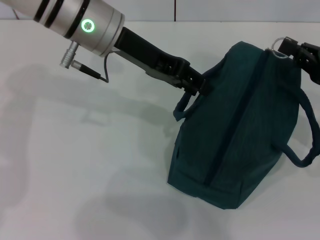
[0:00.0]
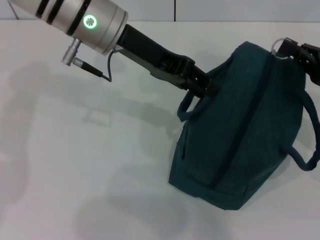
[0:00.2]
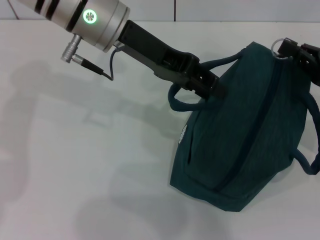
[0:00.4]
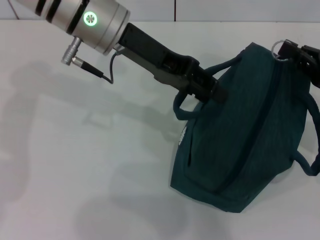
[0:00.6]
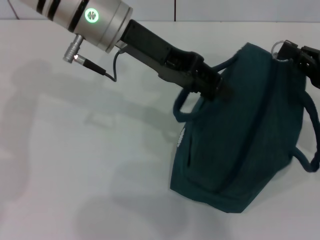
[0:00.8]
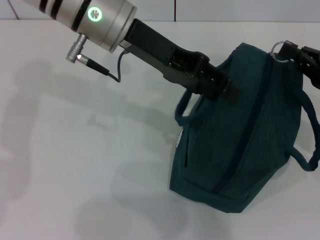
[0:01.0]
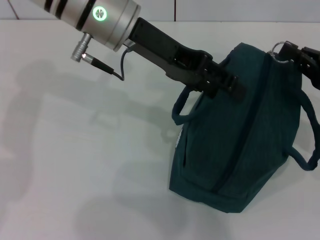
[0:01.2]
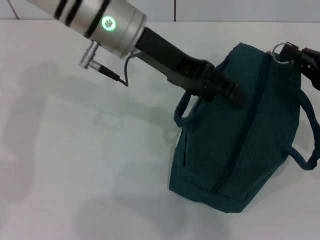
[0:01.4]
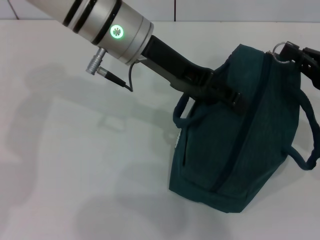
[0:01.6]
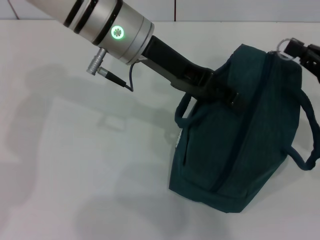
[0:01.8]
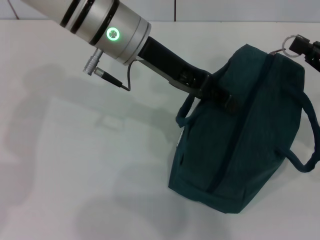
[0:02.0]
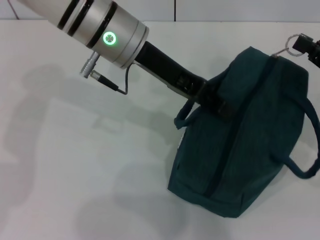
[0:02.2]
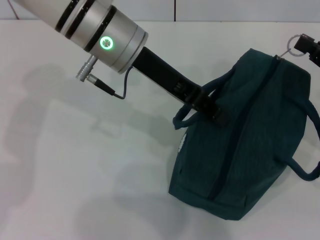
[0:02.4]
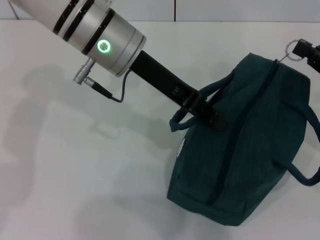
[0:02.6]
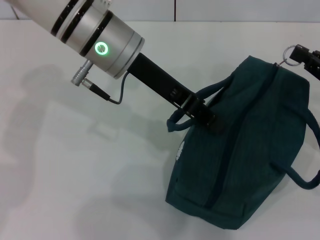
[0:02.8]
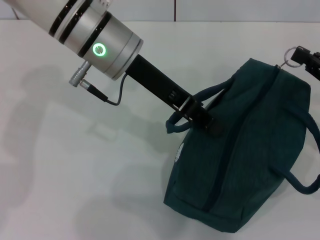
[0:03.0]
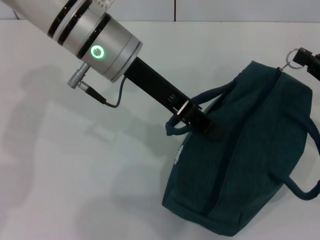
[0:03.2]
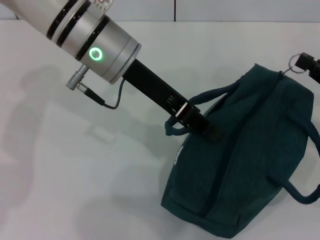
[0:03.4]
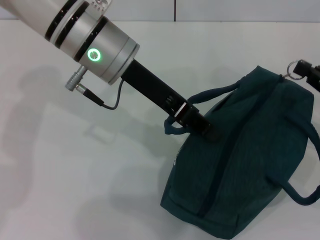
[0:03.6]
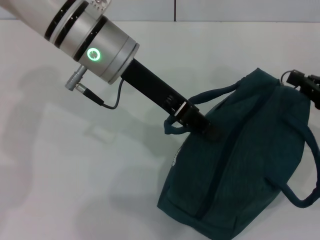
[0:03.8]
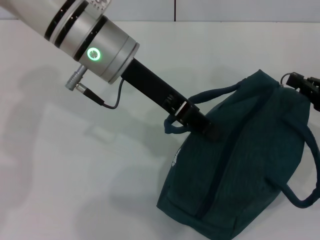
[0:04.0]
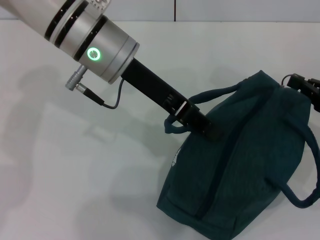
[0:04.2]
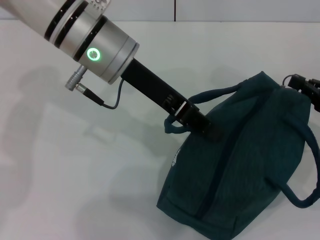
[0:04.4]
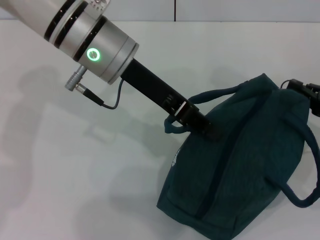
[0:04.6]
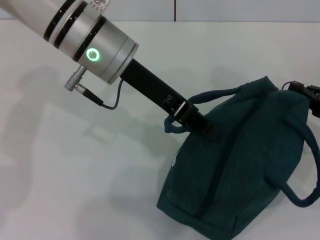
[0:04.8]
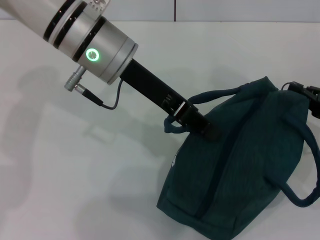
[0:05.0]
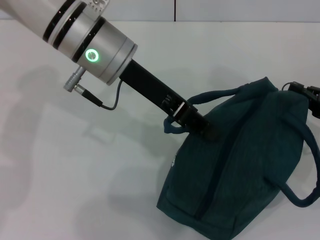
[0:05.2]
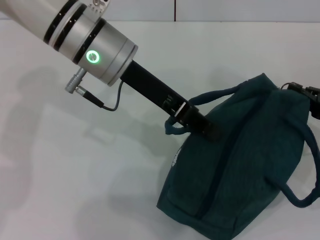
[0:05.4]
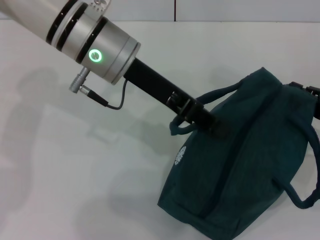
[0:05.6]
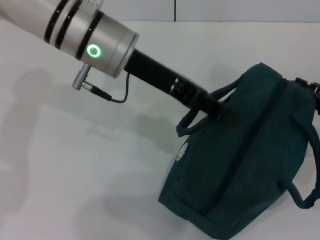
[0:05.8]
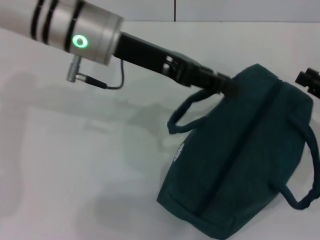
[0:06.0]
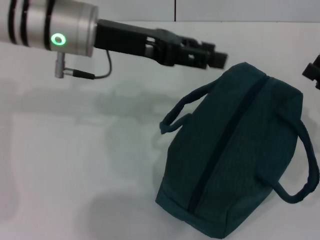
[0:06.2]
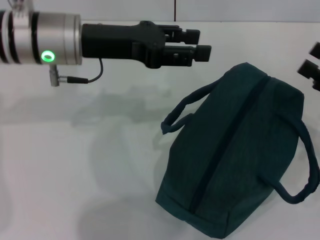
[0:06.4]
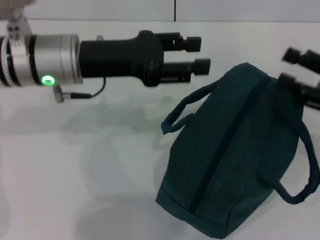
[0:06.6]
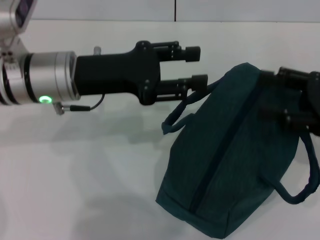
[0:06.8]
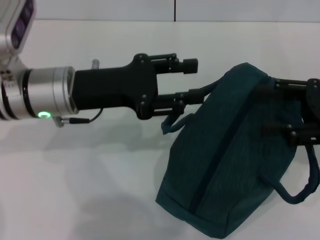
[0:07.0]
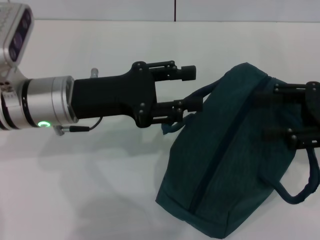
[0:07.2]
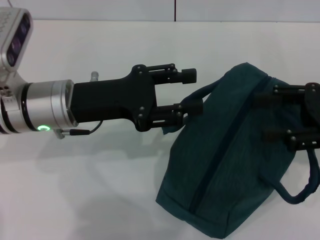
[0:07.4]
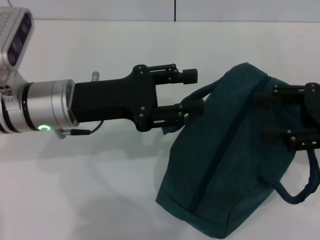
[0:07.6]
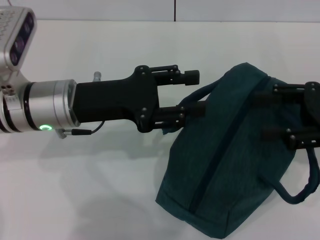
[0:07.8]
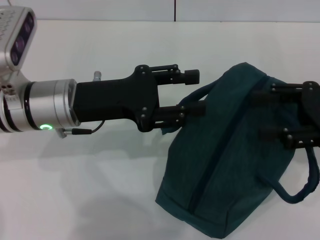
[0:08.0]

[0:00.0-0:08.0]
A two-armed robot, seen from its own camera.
Step, 0:00.0 to 0:05.8: Hold the lunch bag with your left hand.
0:00.0 to 0:01.6: The left gripper opens its fingers.
0:01.6 to 0:03.2: The left gripper closes.
0:03.2 to 0:04.8: The grippers move only a little.
0:04.8 to 0:06.4: The right gripper opens; the left gripper is displaced to the left by about 5 cm, and opens its fingers.
0:06.4 to 0:08.0: The right gripper moves some 5 cm. Meanwhile the left gripper travels downward and backward by roughly 10 cm.

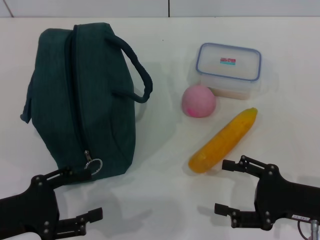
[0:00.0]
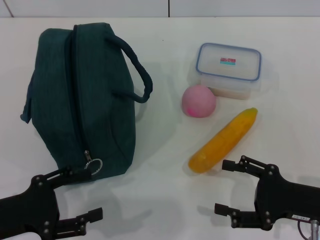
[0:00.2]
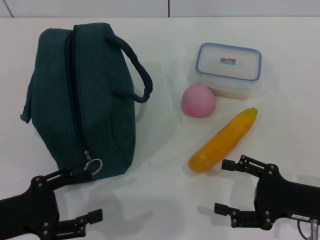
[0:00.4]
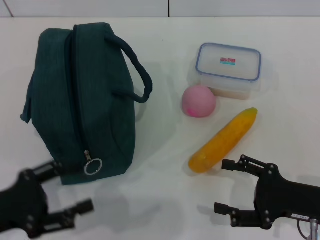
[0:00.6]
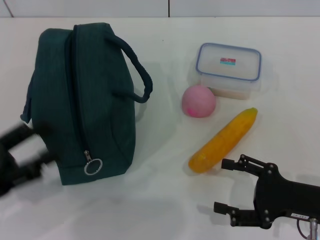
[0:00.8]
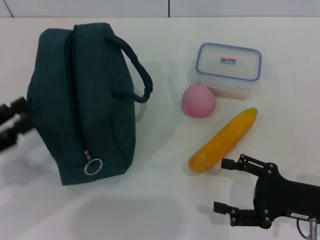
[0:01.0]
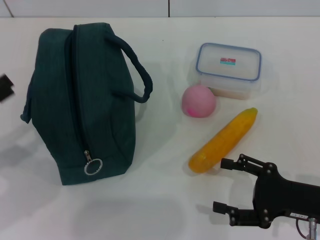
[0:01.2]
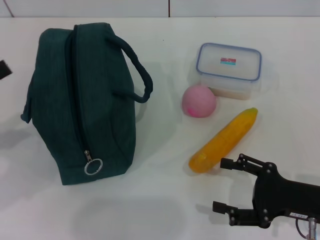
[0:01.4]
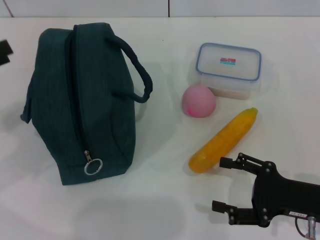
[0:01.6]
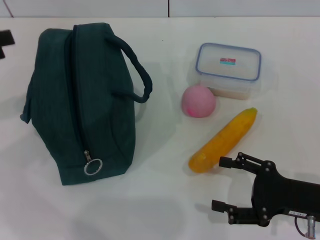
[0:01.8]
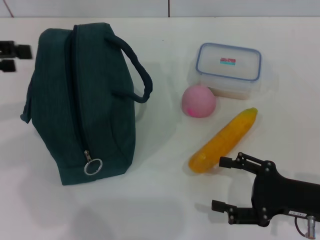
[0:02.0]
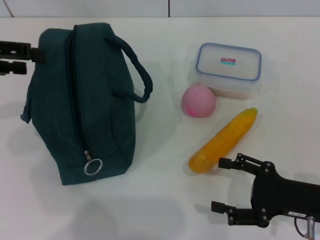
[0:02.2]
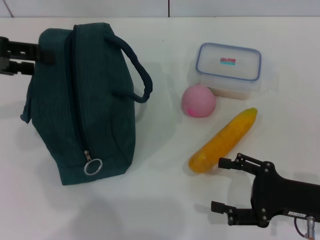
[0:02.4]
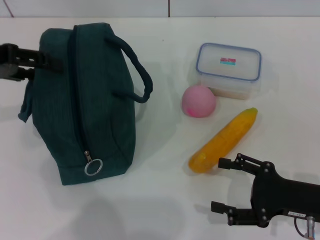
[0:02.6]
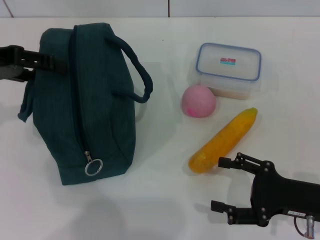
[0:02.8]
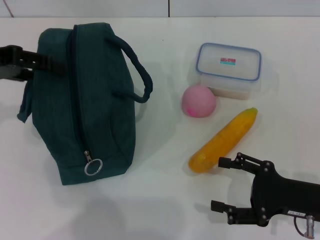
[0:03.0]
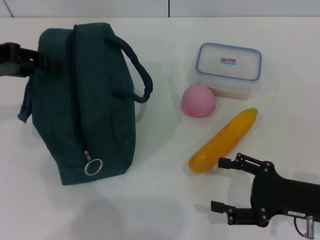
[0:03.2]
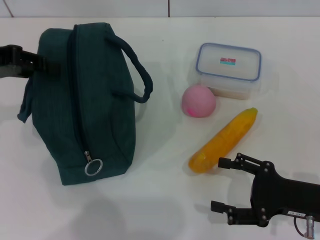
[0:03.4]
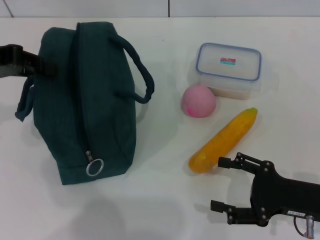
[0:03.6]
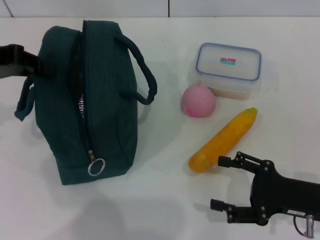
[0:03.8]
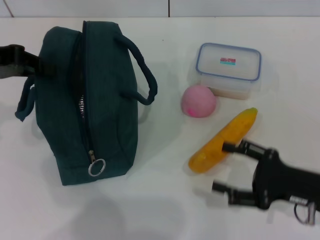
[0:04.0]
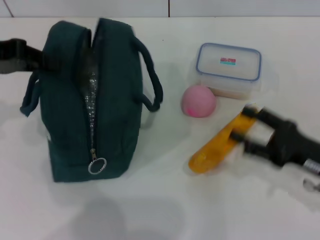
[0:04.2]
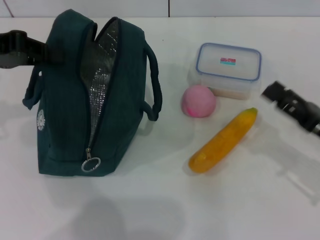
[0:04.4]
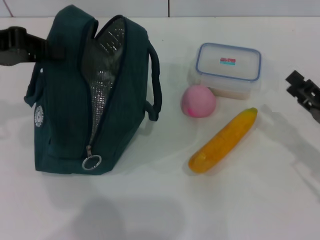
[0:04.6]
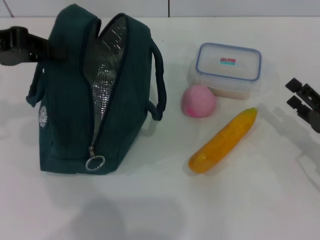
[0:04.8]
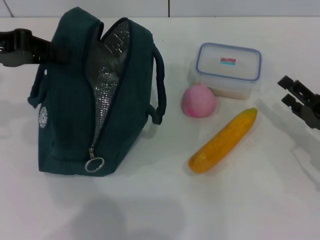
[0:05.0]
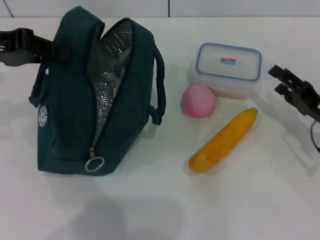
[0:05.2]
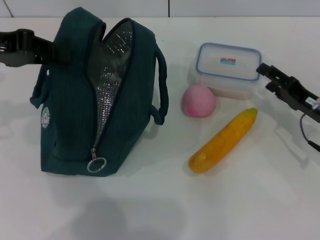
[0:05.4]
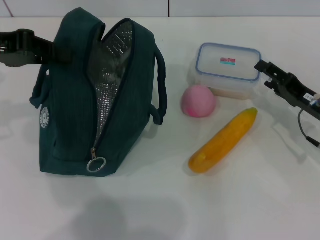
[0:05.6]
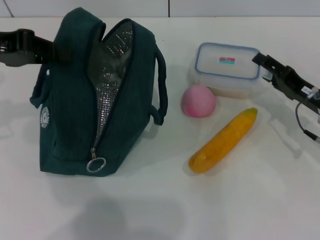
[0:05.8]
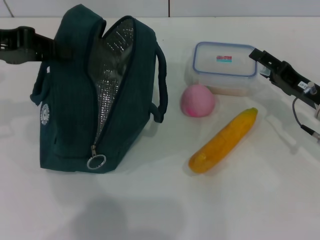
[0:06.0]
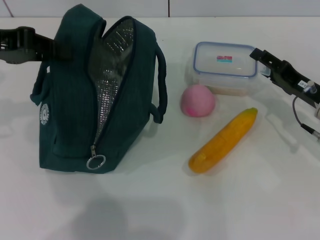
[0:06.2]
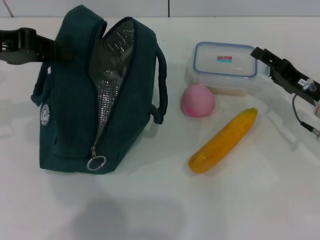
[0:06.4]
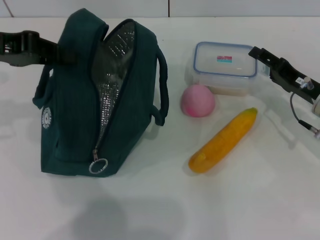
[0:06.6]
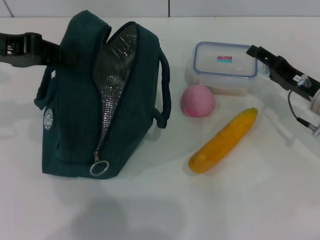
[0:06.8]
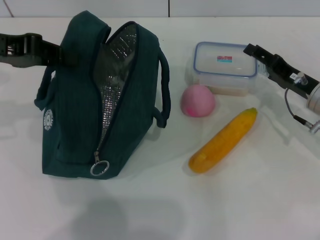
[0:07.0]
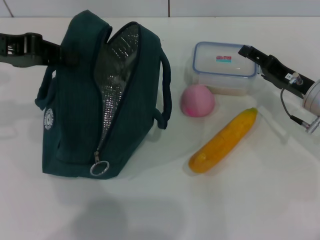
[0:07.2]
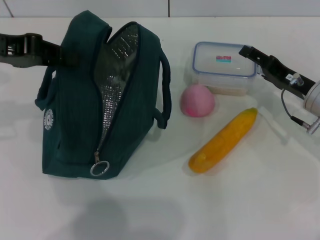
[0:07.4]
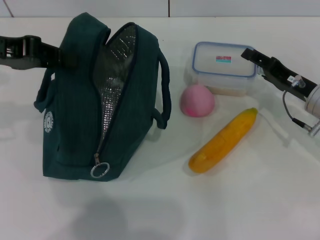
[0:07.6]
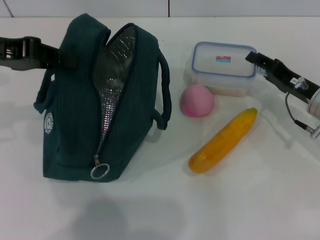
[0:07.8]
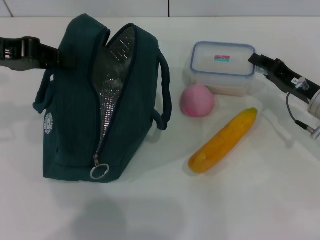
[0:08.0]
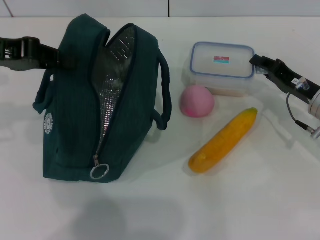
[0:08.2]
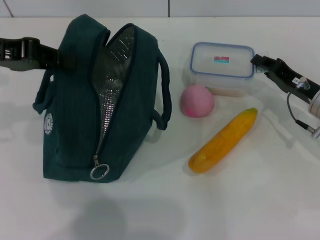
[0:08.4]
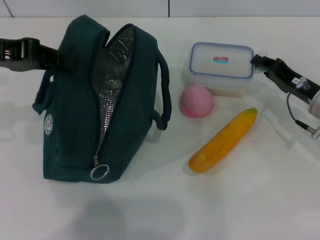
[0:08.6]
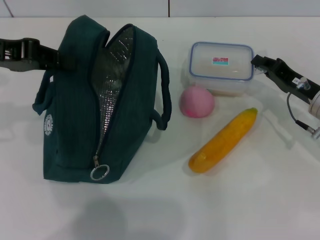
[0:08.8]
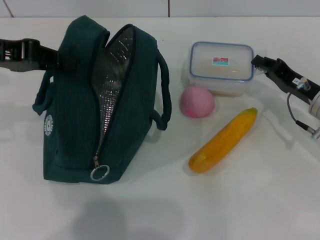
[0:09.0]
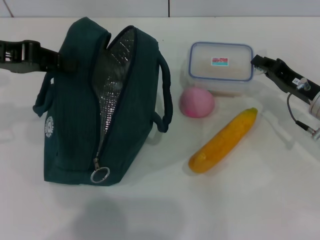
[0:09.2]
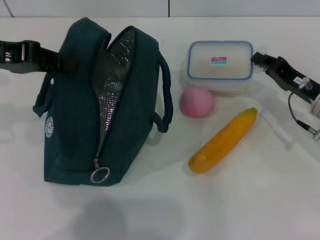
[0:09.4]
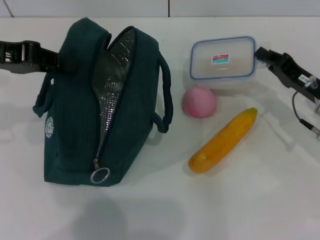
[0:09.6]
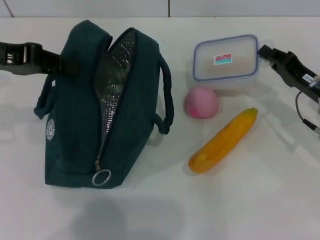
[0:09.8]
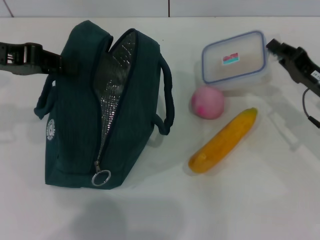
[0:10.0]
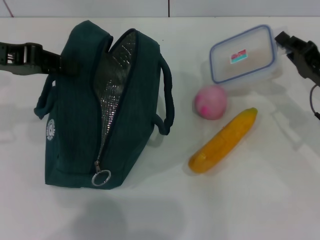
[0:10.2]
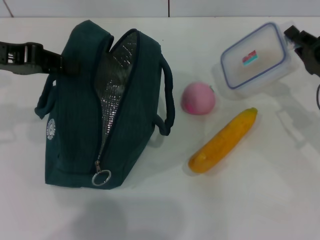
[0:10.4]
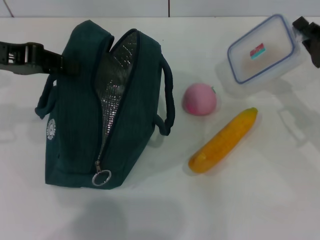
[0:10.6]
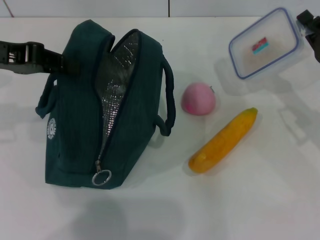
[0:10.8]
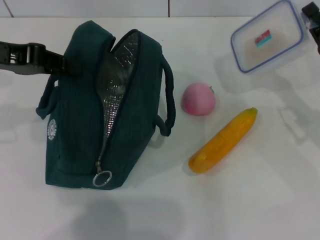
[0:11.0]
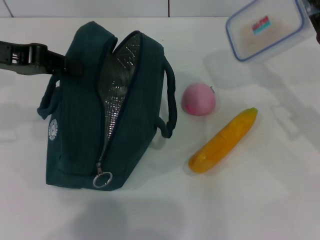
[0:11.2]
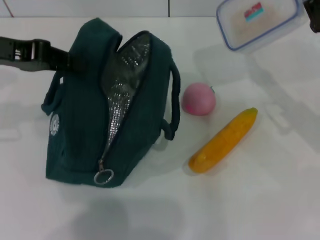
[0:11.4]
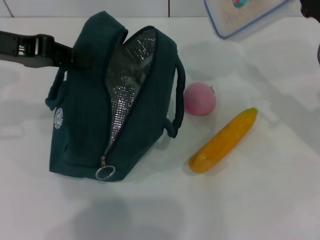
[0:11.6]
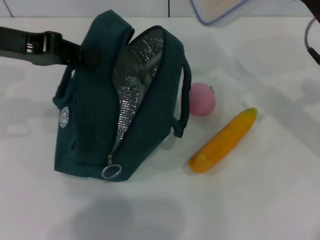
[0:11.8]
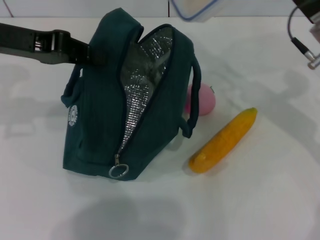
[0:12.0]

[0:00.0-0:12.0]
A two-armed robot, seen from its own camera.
Step, 0:00.0 to 0:04.0: Hold the lunch bag with your left hand.
Step, 0:04.2 to 0:09.4: Pick up the lunch box with your right hand.
0:00.0 to 0:01.6: The left gripper moves upward, forward and to the left, about 15 cm.
0:01.6 to 0:03.0: The left gripper travels forward, to the right and upward by some 10 cm.
0:03.0 to 0:04.4: The left gripper closes its fingers.
0:04.4 to 0:06.0: The right gripper moves forward, roughly 10 cm.
0:06.0 to 0:07.6: The grippers make only small movements.
0:07.6 to 0:09.0: The right gripper closes.
0:09.0 to 0:10.4: The grippers move only a little.
0:10.4 to 0:12.0: The right gripper travels upward and to the left by approximately 10 cm.

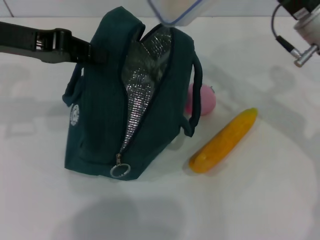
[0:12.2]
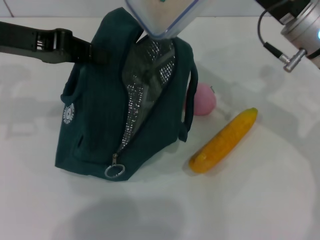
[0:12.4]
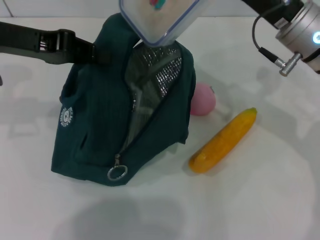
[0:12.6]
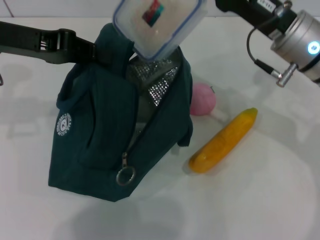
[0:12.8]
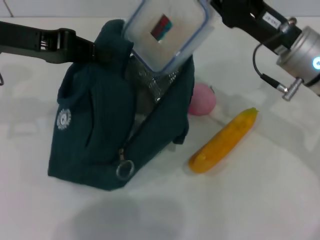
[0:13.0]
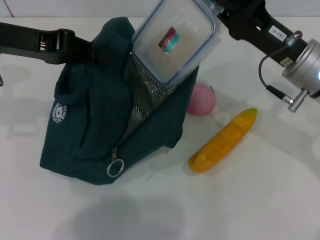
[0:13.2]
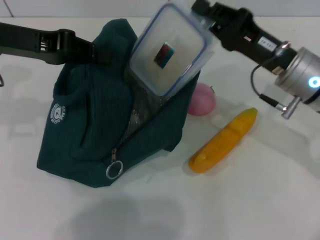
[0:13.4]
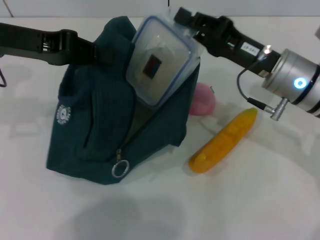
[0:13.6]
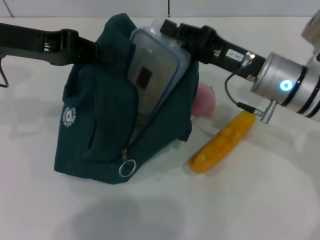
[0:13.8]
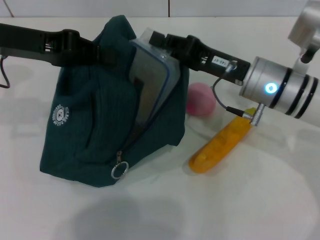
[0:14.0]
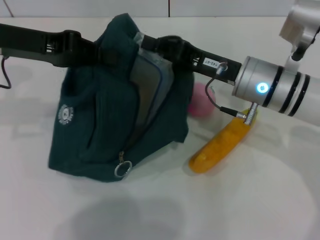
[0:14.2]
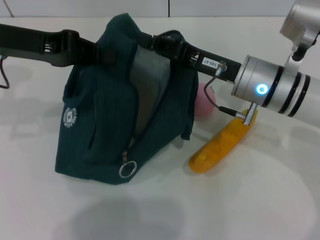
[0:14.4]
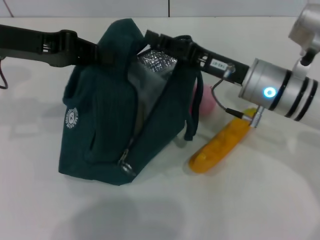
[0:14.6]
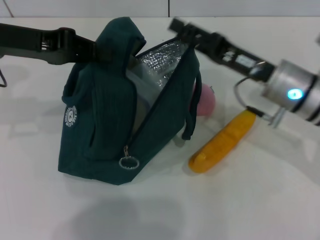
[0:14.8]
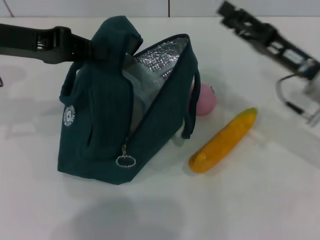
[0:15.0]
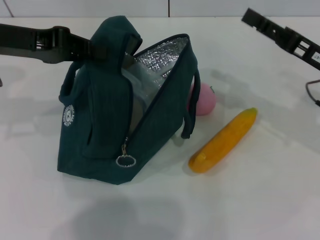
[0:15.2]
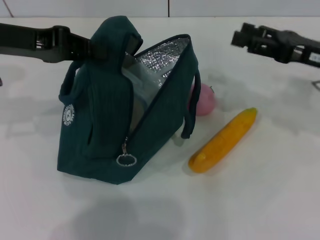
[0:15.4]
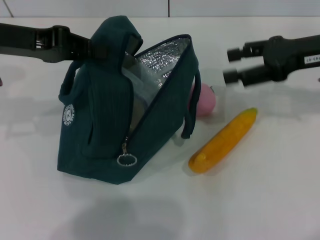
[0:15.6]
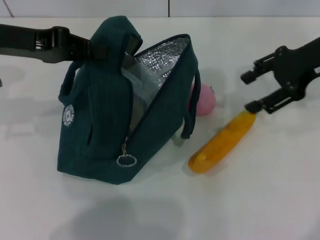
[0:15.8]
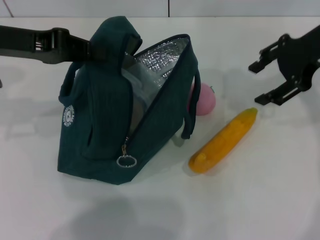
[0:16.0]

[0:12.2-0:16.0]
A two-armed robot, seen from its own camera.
Step, 0:12.2 to 0:14.4: Place the lunch box into the lunch bag with your right hand.
0:12.2 to 0:13.4: The right gripper changes place by roughly 5 cm.
0:14.8 to 0:16.0: The right gripper heads upward, to the right and forward, covering roughly 15 cm, and opens its fingers.
